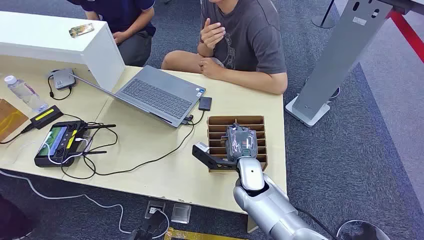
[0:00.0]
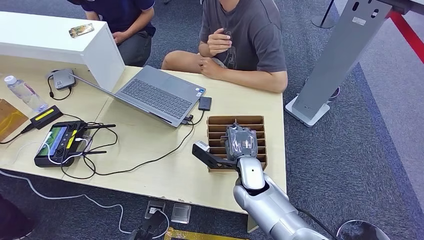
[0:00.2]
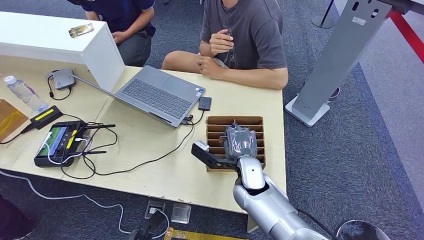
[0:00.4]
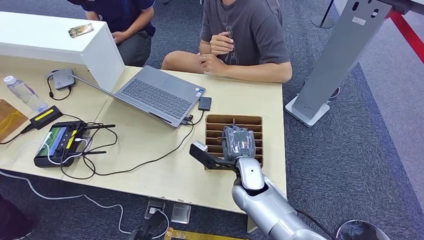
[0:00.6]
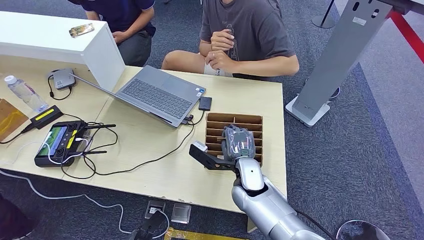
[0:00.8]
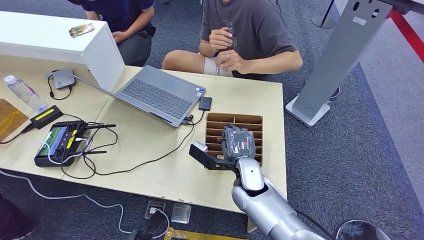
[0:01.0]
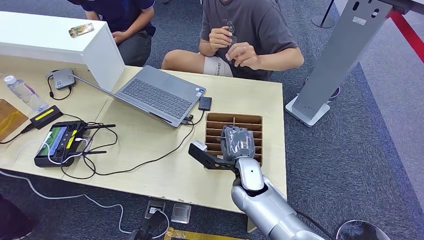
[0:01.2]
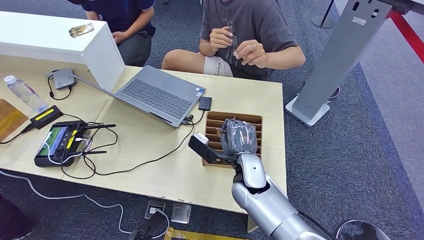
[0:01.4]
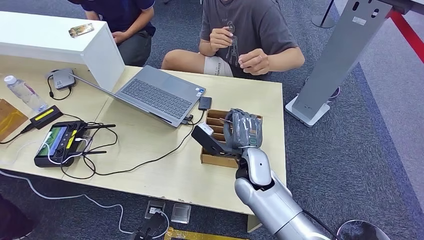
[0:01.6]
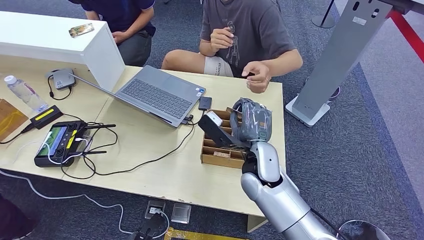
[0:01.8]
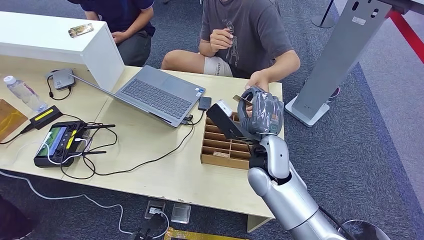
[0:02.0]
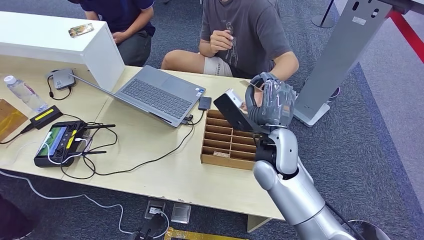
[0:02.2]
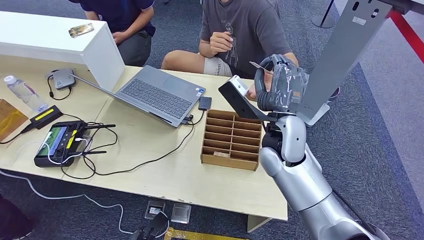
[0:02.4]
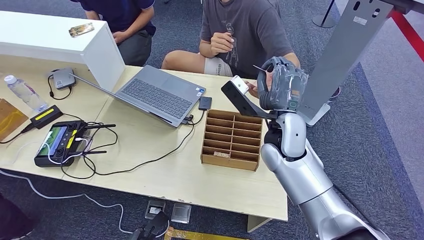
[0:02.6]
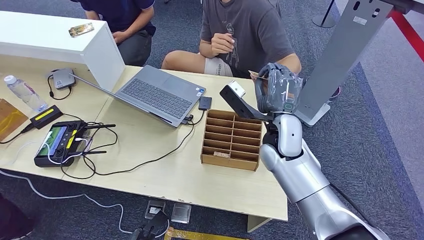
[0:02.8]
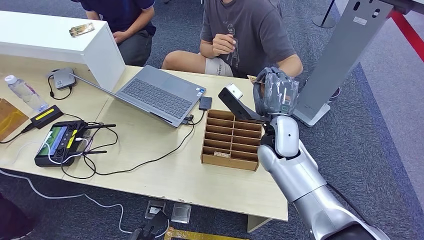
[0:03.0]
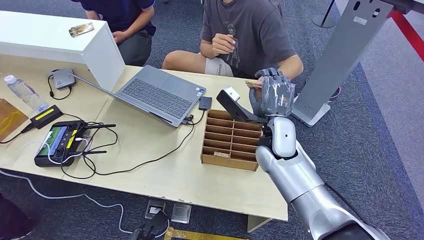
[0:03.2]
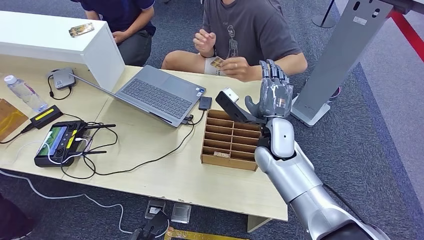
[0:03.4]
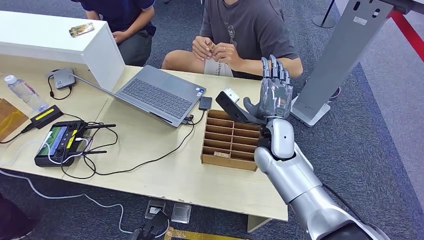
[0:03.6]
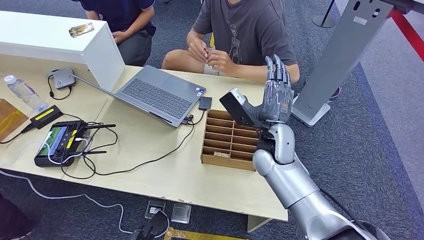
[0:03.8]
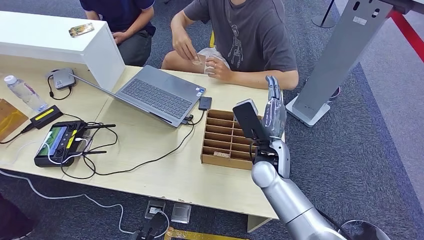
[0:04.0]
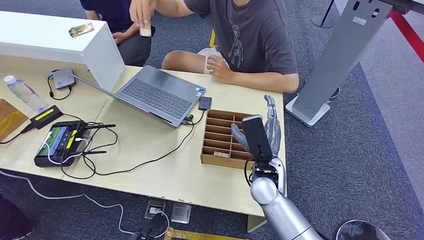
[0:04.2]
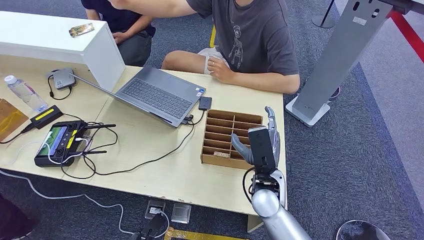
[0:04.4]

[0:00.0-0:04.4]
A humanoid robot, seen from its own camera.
Step, 0:00.0 to 0:01.6: Pick up the key card from the card box.
Step, 0:01.8 to 0:04.4: Hand the key card to the target.
0:01.4 to 0:03.0: The right hand shifts some 10 cm upward, forward and to the right.
0:03.0 to 0:04.4: The right hand goes approximately 15 cm backward and downward.
